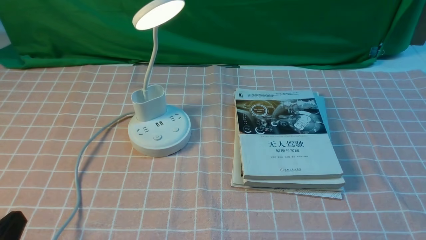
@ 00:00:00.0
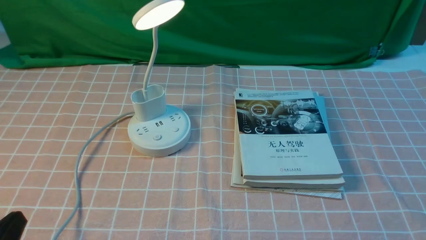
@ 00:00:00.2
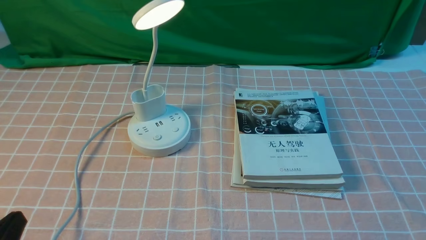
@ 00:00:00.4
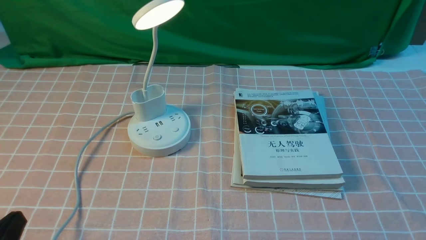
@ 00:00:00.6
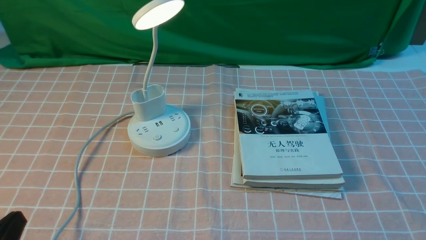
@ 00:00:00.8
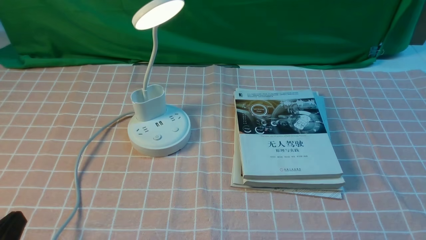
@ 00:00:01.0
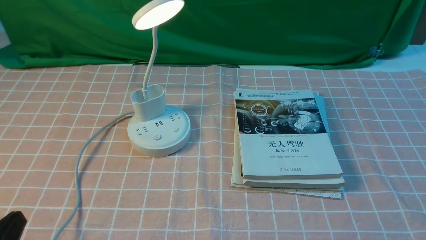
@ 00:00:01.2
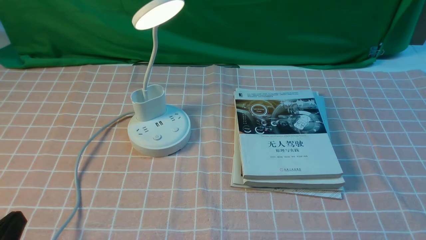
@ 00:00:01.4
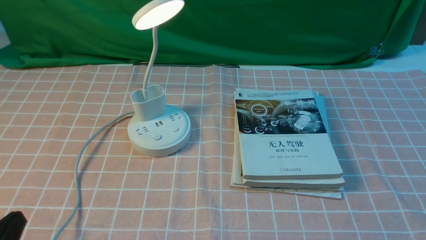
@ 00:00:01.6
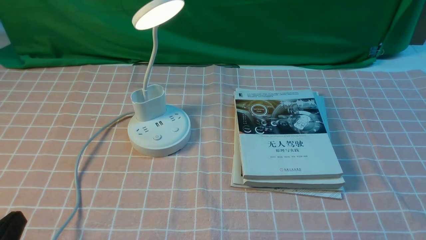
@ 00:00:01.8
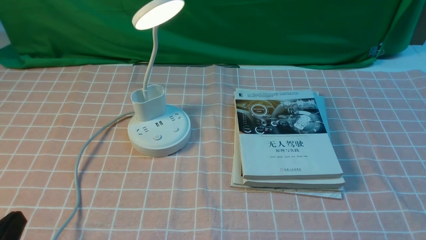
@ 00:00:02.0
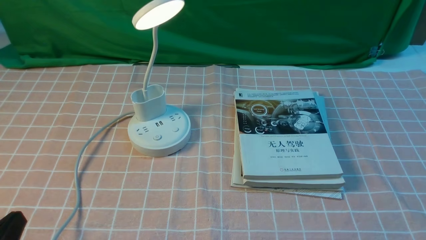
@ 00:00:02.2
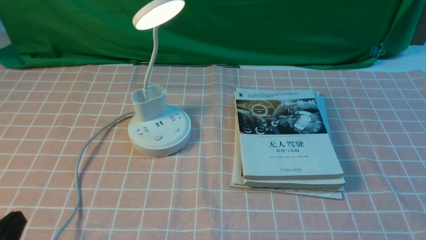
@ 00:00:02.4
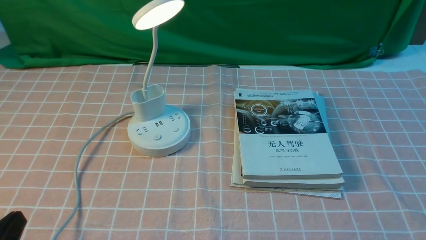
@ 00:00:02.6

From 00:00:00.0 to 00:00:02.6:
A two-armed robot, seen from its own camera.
From 00:00:00.0 to 00:00:02.6: The two grippers keep their place.

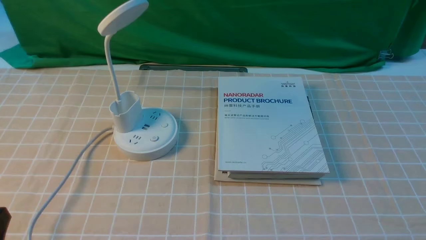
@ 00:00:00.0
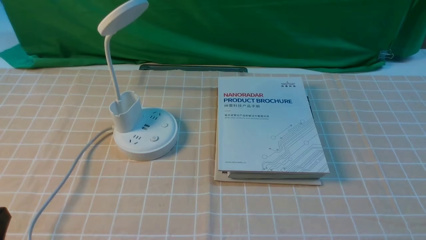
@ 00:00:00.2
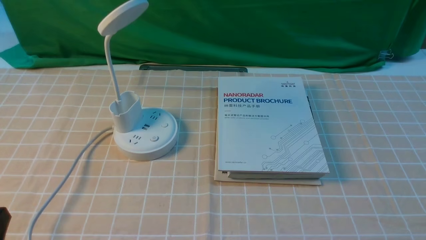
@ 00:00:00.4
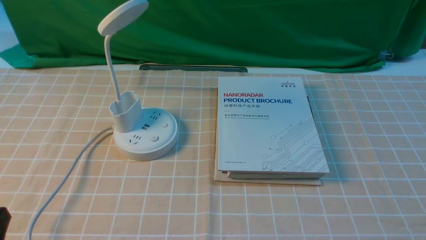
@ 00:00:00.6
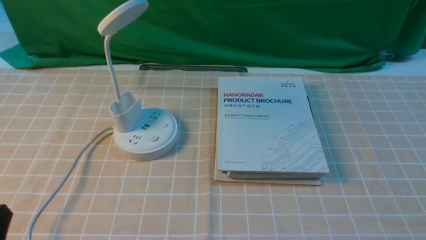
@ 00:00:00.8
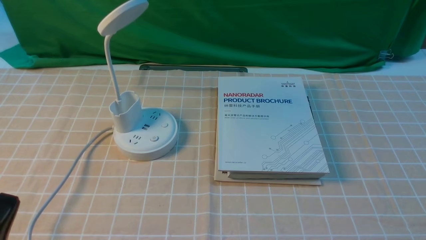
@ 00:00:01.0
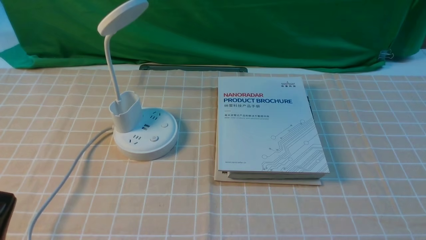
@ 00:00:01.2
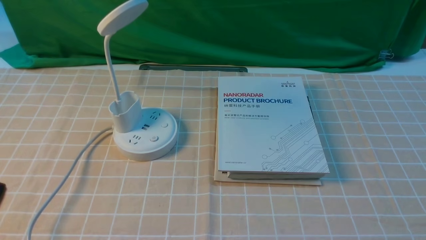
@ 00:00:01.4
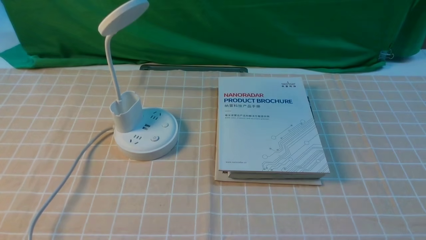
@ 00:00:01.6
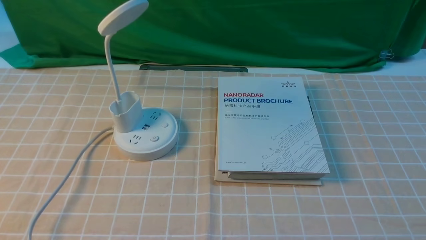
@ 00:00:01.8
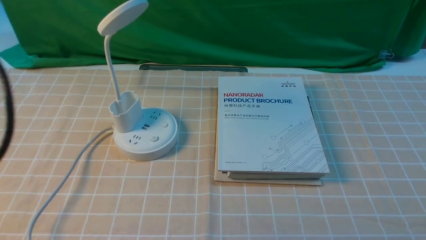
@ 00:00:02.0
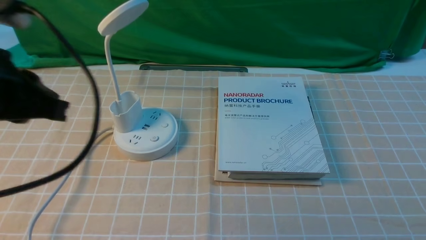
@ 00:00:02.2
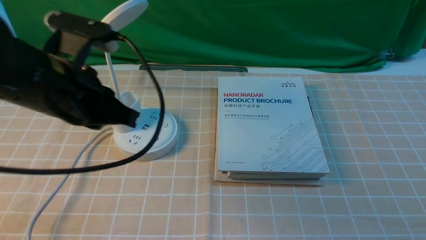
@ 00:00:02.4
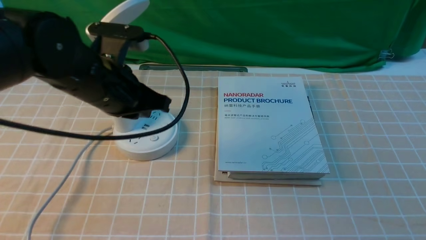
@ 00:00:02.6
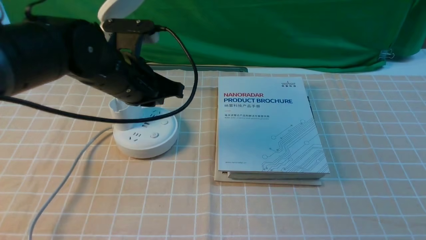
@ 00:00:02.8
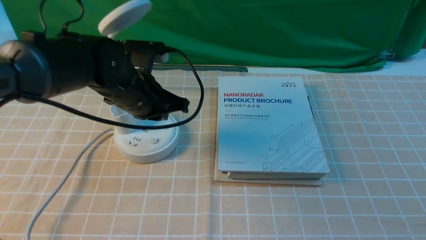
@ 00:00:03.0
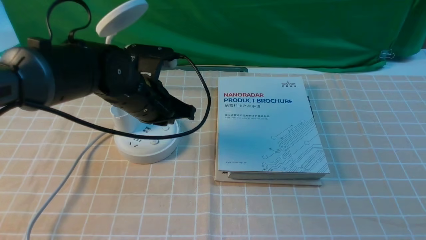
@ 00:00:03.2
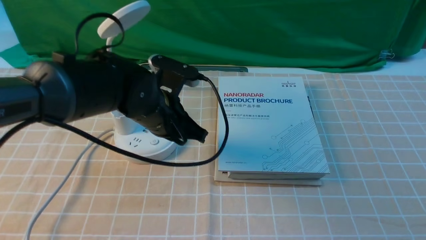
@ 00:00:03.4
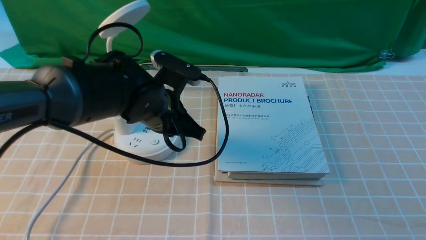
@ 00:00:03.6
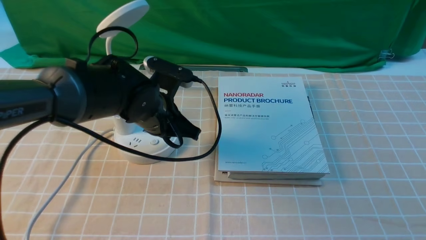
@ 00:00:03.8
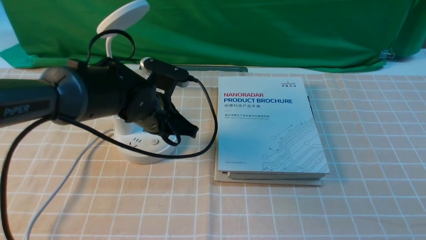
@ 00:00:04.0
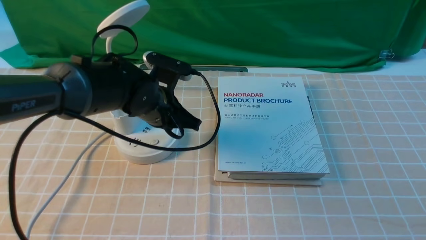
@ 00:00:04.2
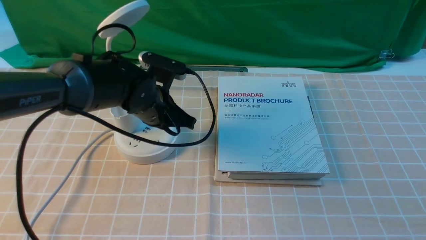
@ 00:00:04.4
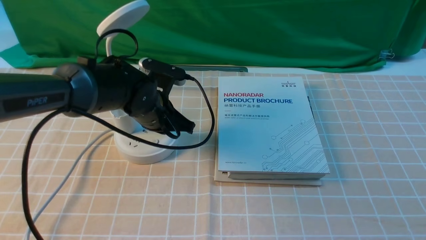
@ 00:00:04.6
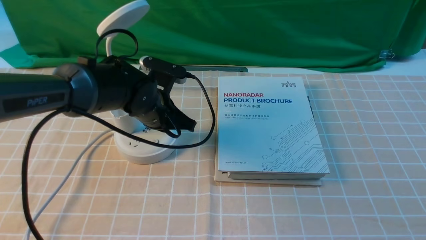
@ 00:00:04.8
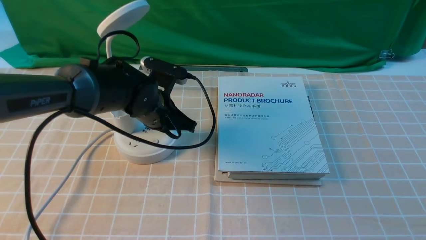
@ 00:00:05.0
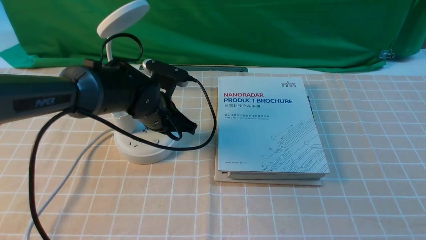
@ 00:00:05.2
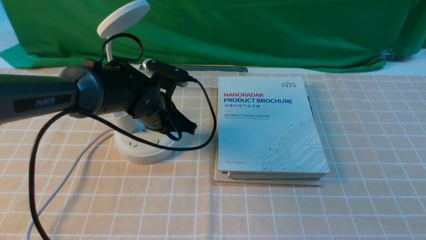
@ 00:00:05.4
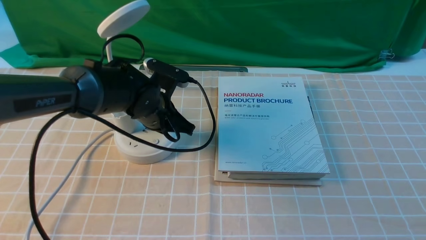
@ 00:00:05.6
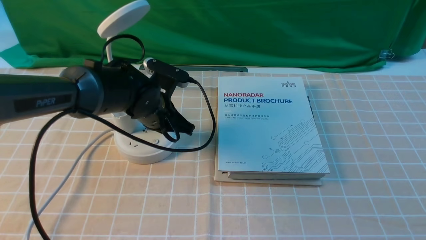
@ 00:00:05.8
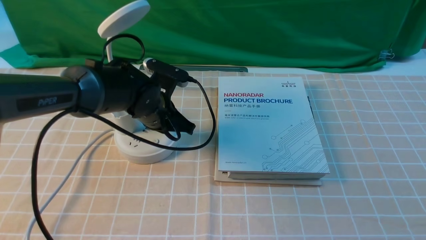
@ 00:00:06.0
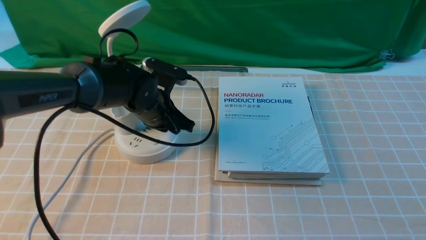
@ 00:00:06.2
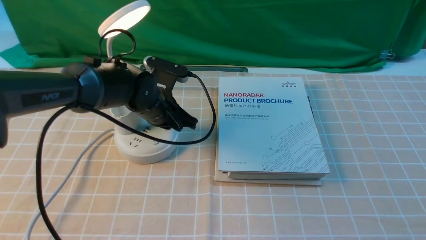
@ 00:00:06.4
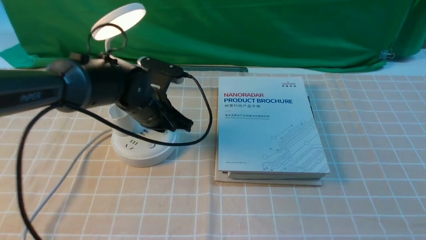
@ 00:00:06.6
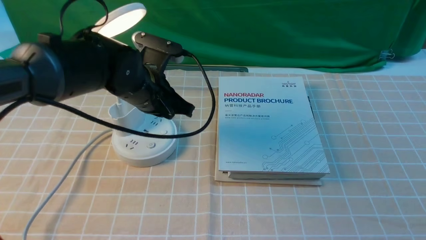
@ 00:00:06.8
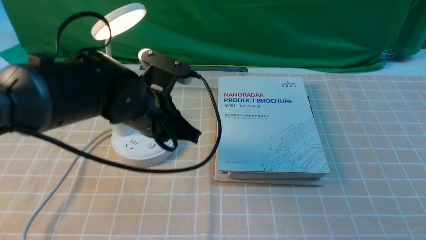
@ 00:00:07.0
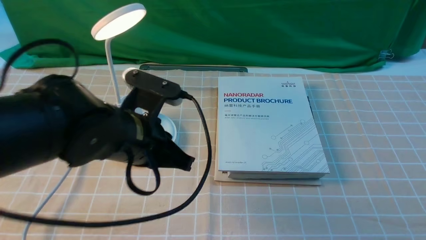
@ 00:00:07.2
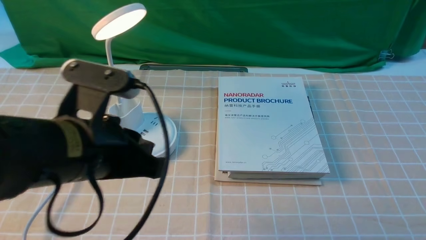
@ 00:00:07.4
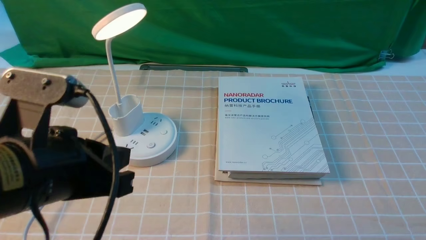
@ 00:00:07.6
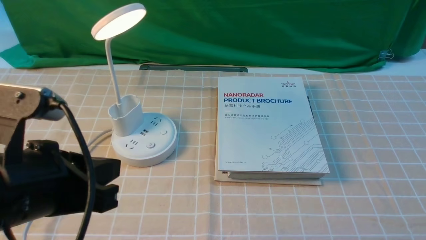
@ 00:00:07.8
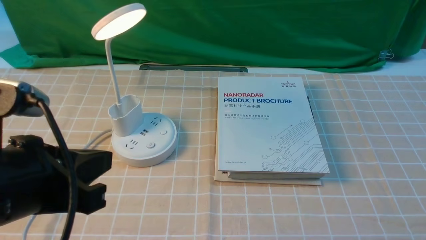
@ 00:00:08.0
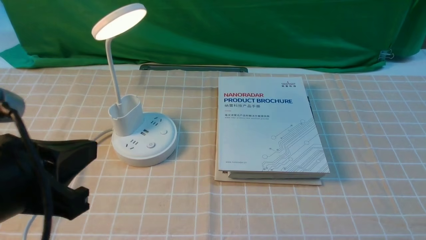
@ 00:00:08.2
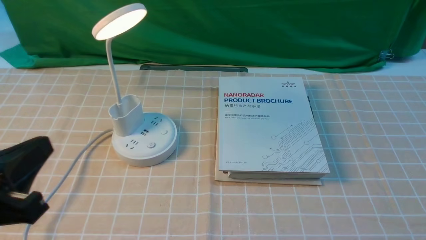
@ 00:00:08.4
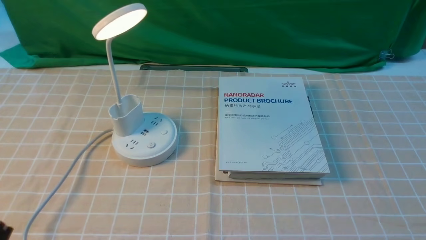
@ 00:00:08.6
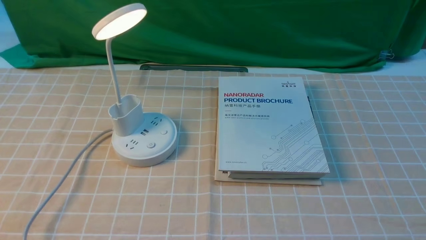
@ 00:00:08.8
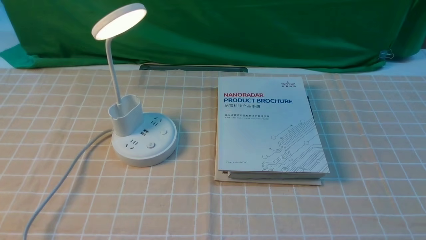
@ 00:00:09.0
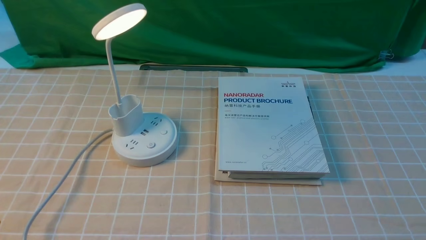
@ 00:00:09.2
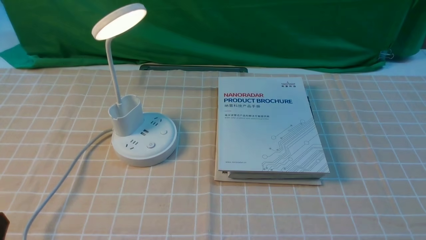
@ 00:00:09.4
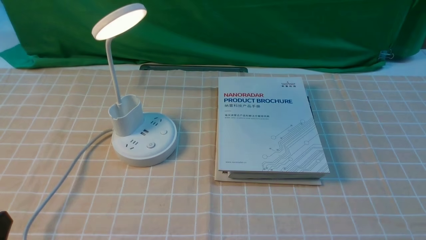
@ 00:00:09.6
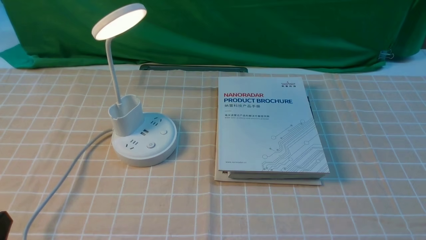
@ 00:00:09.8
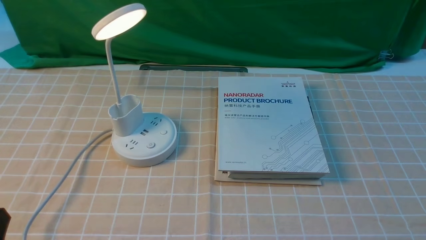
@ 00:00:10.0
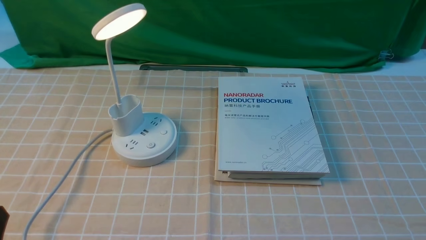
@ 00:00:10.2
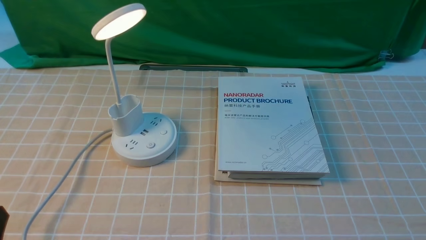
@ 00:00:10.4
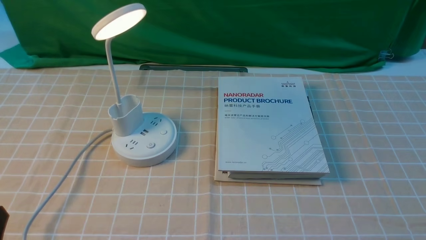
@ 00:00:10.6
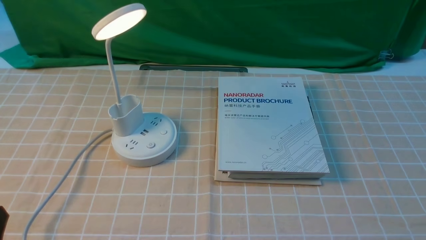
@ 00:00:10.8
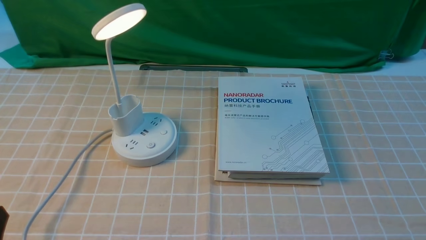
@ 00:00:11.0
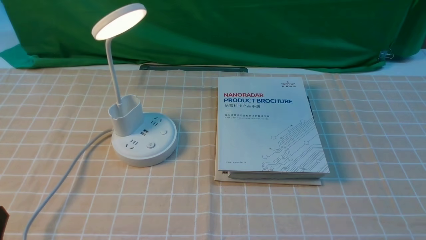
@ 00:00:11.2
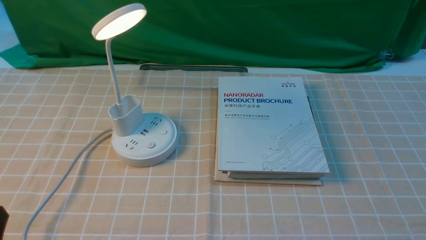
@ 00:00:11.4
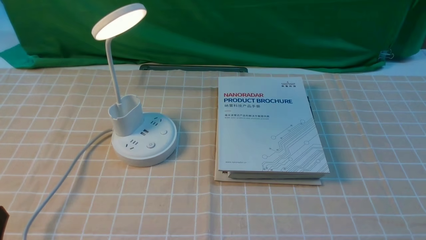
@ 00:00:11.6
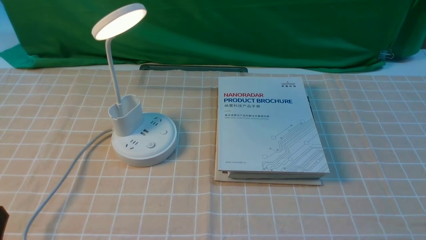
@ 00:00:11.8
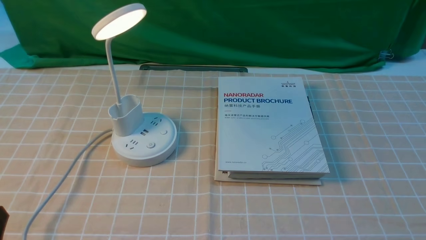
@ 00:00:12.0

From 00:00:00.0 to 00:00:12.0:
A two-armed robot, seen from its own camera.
Step, from 00:00:00.0 to 00:00:07.0: use the left arm to press the button switch on the lamp holder.
From 00:00:01.6 to 00:00:03.0: The left gripper moves forward and to the right, about 35 cm.
From 00:00:03.0 to 00:00:04.4: The left gripper heads downward, covering some 5 cm.
From 00:00:04.4 to 00:00:06.0: There are only small adjustments of the grippers.
From 00:00:06.0 to 00:00:07.6: The left gripper moves backward and upward, some 25 cm.
From 00:00:07.6 to 00:00:09.0: The left gripper heads to the left, backward and downward, covering about 20 cm.
From 00:00:10.4 to 00:00:12.0: The two grippers keep their place.
